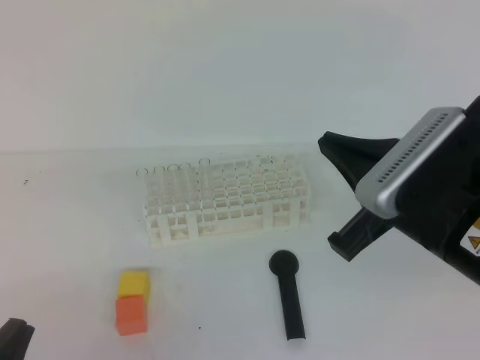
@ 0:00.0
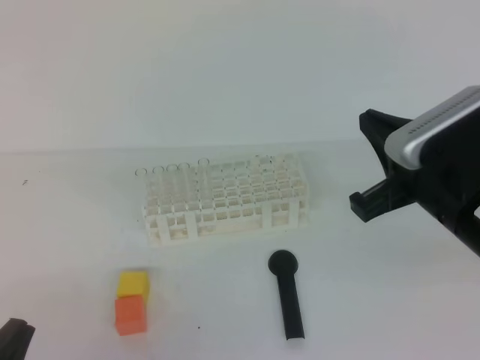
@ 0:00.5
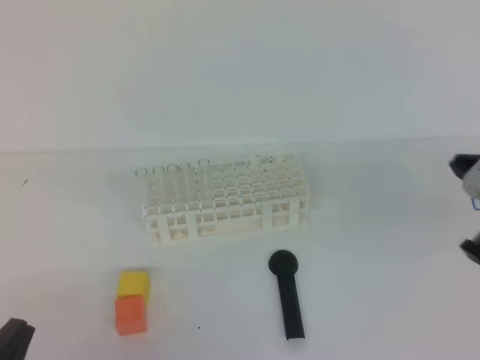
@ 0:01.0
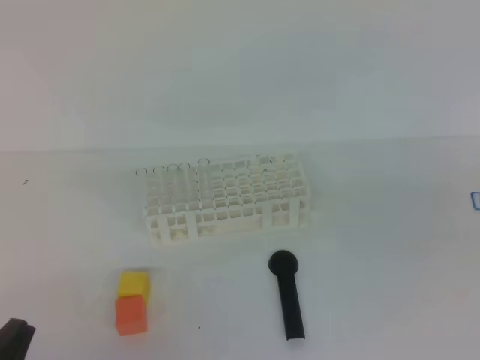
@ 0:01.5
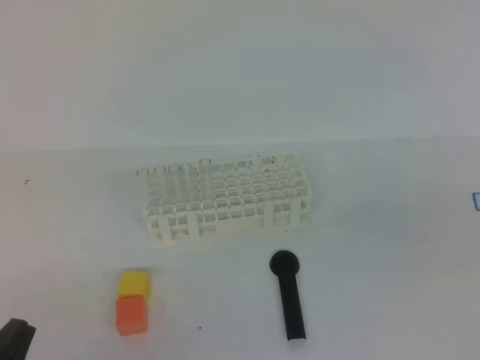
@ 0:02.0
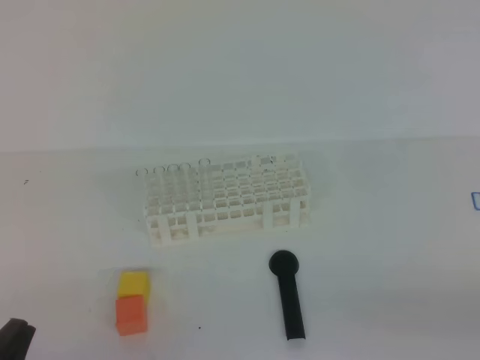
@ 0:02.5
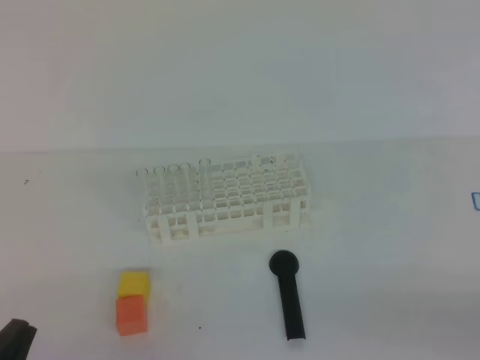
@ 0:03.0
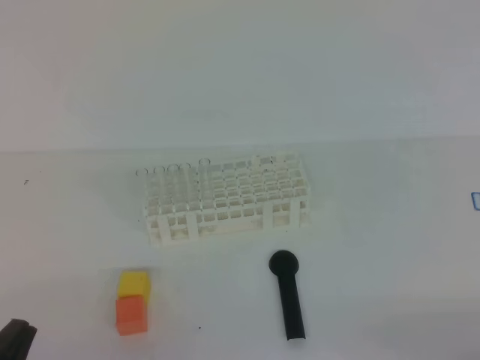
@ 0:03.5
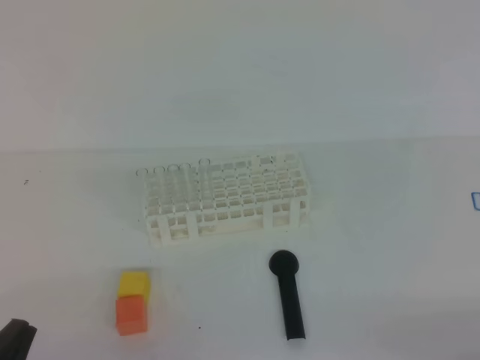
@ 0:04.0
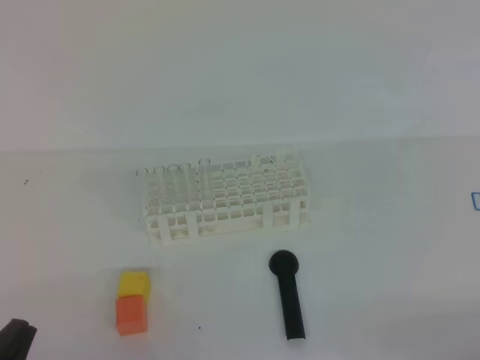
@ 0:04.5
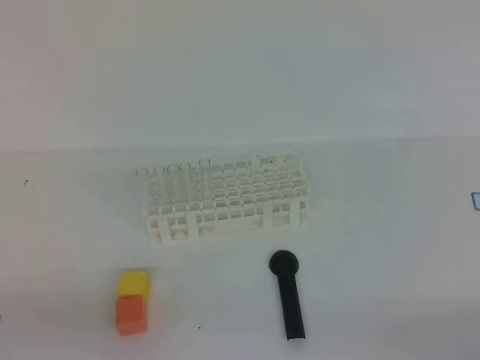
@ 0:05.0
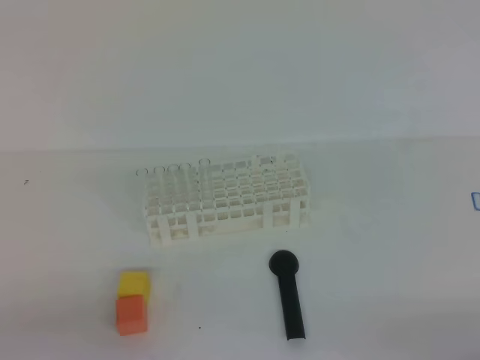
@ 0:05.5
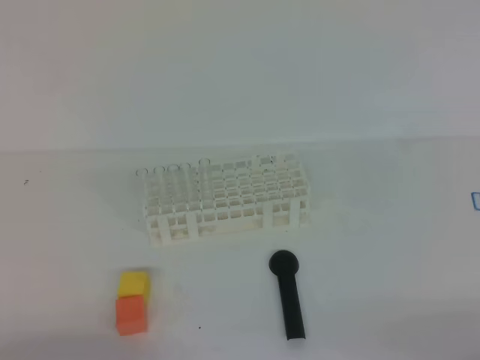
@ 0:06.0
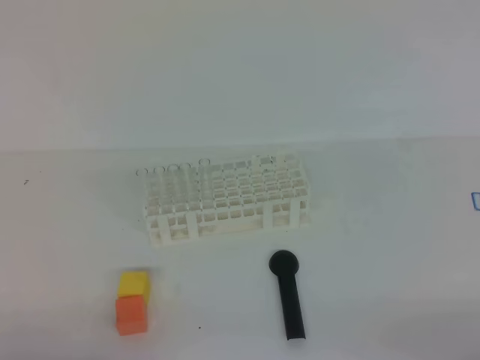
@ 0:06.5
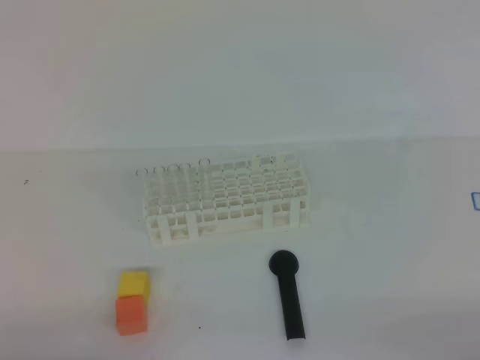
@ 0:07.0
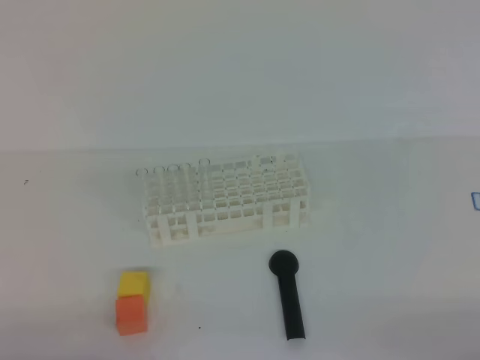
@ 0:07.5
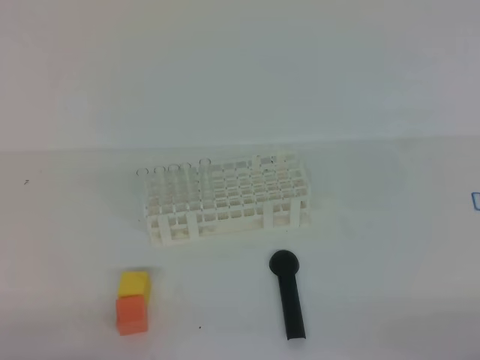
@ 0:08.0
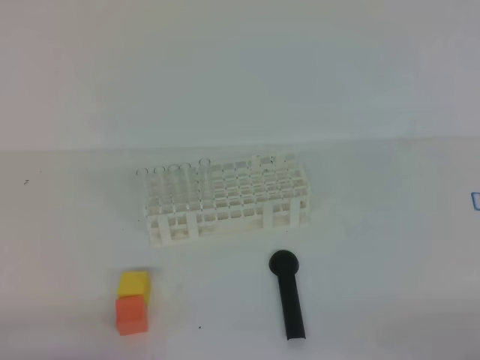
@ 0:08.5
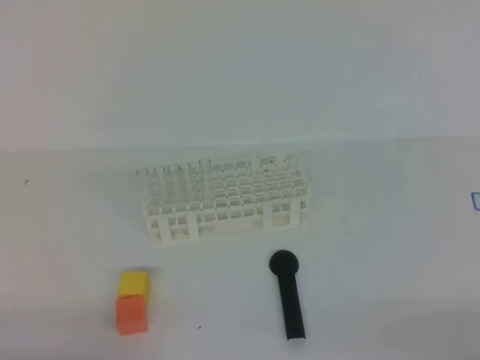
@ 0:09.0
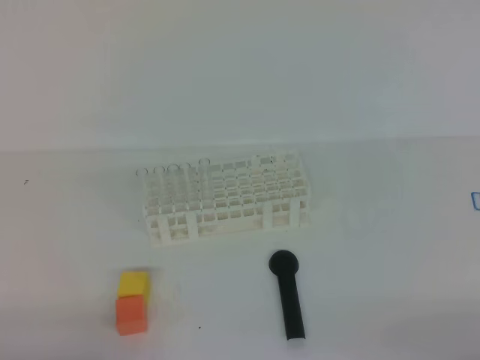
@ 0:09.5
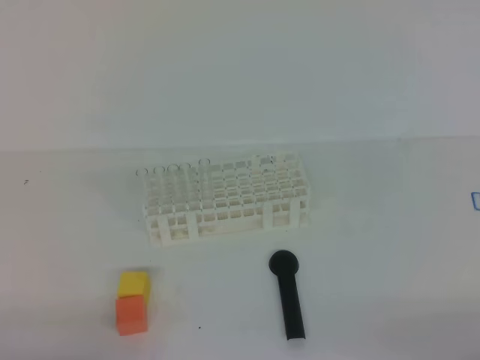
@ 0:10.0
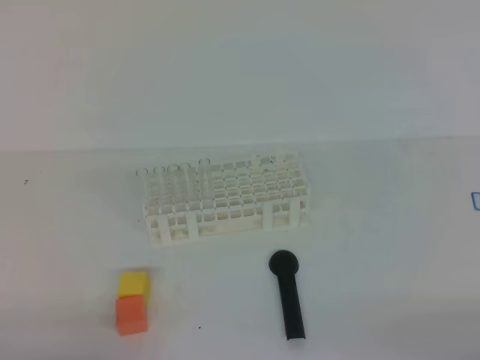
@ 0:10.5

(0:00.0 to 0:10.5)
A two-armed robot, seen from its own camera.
0:00.0 - 0:02.0: The right gripper goes some 20 cm to the right and backward.
